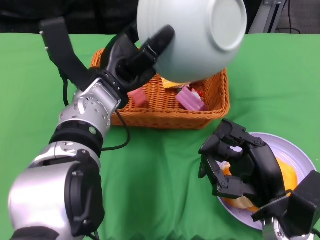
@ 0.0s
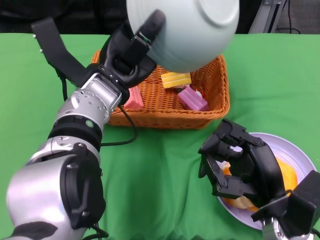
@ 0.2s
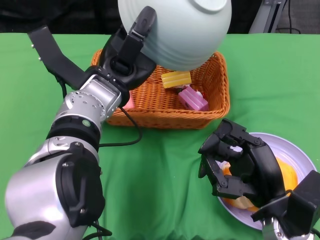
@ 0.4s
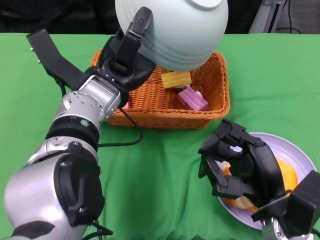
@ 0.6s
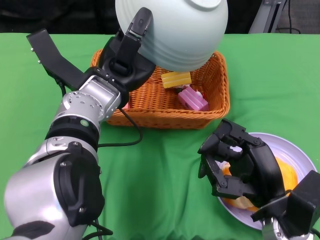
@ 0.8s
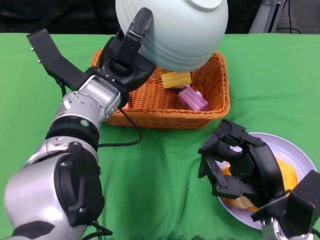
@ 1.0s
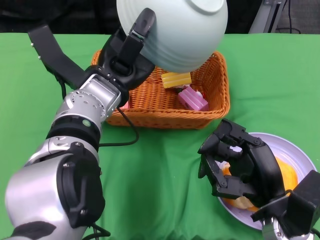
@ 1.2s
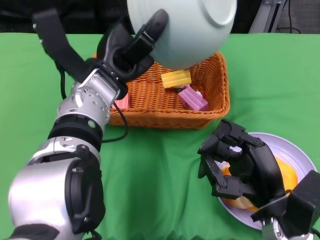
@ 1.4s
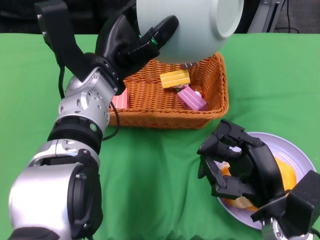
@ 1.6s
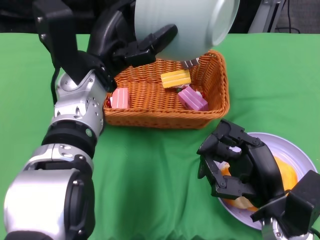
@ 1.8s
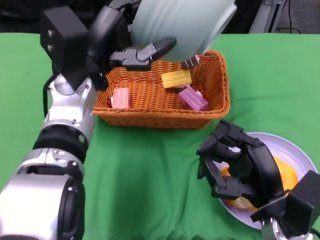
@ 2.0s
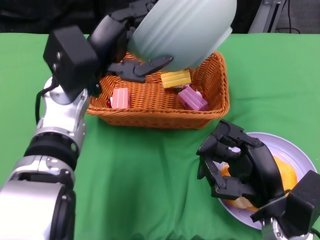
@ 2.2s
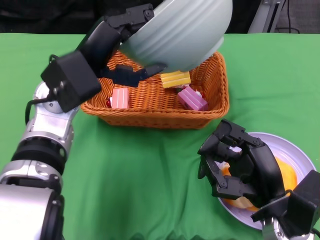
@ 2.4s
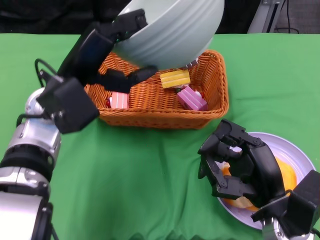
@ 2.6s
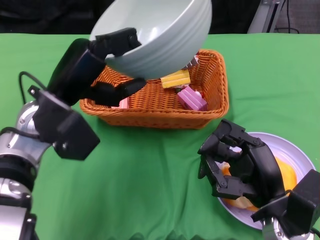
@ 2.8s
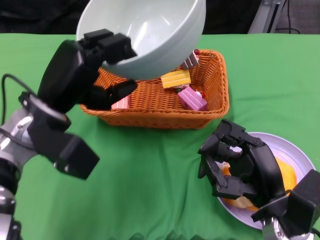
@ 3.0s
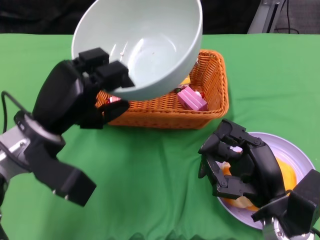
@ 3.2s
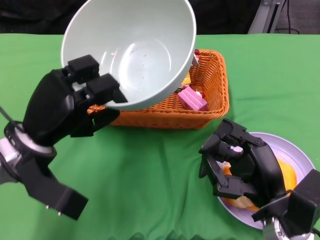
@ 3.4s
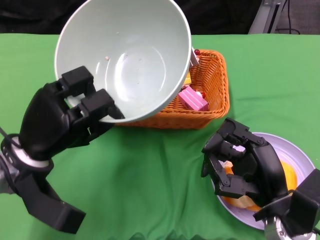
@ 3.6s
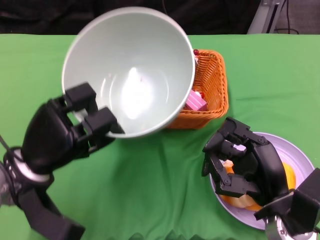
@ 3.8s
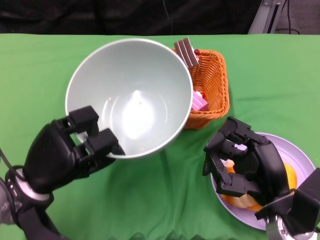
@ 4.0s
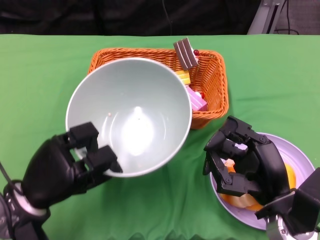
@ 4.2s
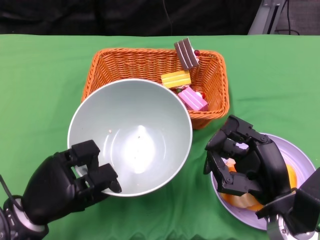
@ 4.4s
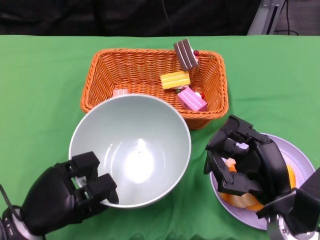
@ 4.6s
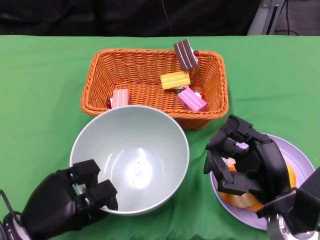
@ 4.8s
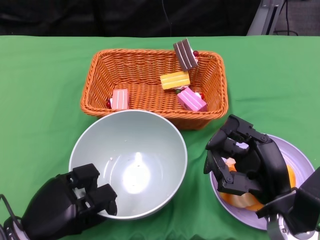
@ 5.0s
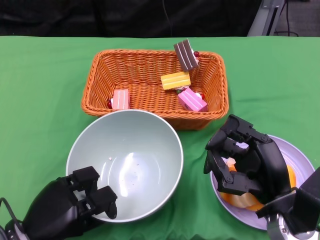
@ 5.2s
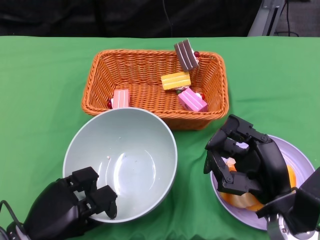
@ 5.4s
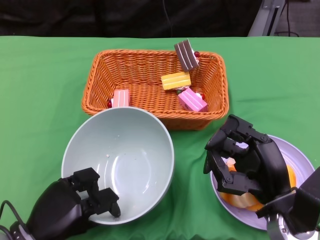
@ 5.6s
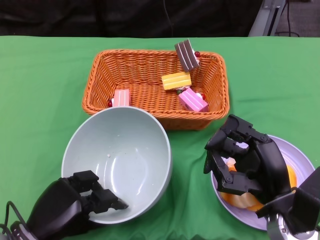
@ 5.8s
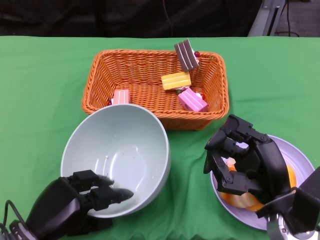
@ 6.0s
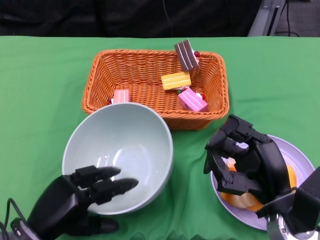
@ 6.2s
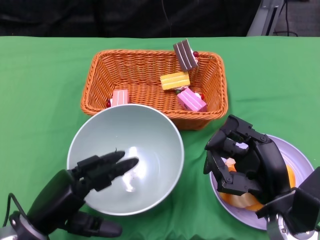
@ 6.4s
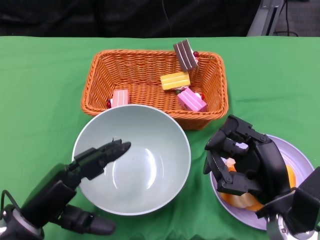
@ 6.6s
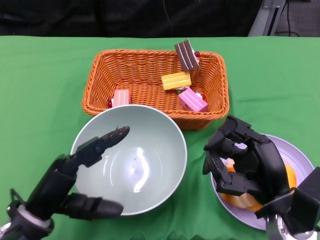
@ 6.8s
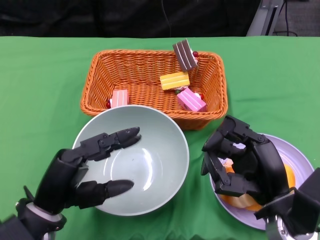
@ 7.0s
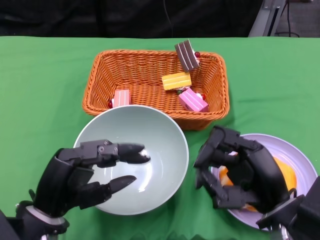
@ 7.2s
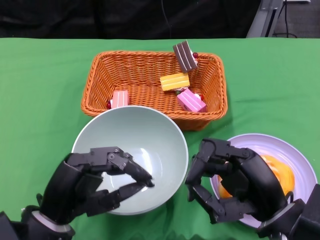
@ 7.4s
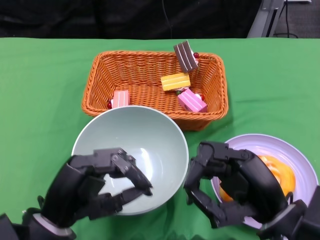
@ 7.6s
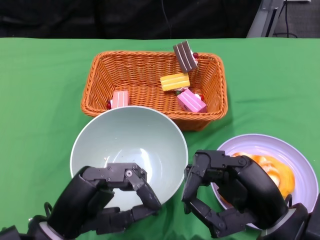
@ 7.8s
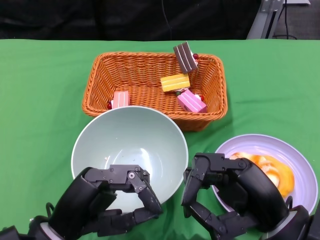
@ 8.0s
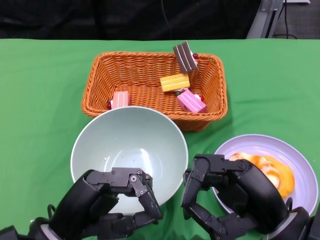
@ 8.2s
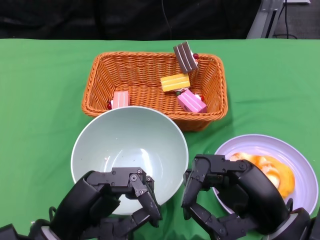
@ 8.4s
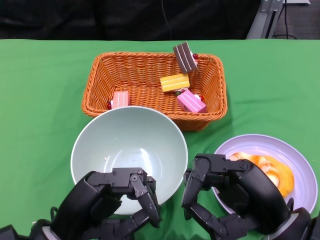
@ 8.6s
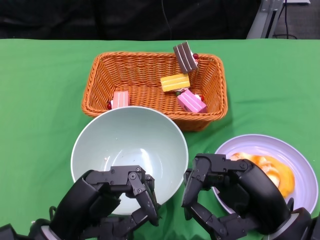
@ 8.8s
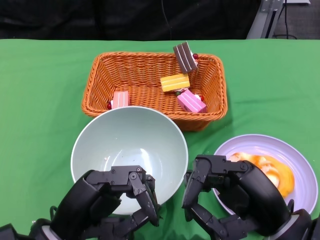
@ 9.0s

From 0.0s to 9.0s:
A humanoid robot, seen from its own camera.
Step, from 0.2s to 6.4s: Place the bowl on the table with the left gripper.
From 1.6s to 3.0s: The left hand is displaced to the left by some 5 cm.
From 3.0s to 4.4s: The left hand goes about 15 cm downward and backward.
From 6.0s to 7.6s: The left hand shifts approximately 10 cm upward.

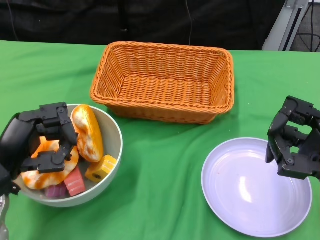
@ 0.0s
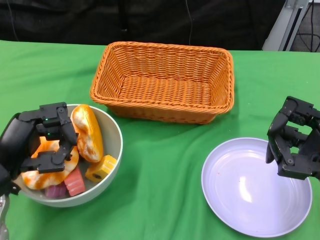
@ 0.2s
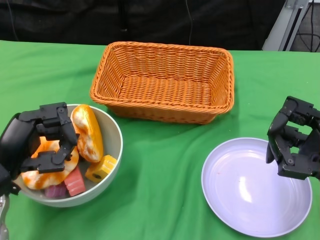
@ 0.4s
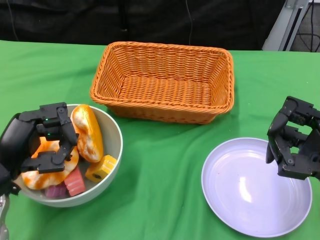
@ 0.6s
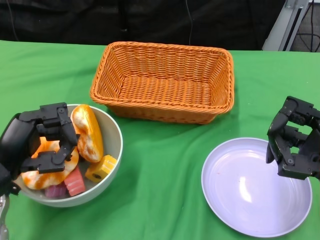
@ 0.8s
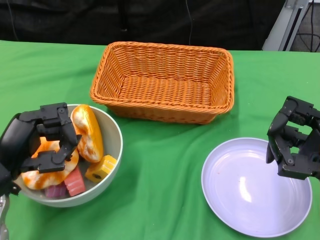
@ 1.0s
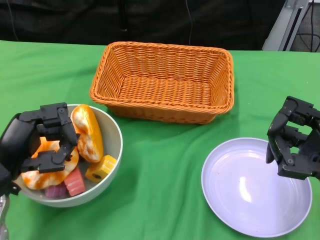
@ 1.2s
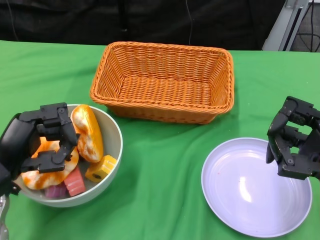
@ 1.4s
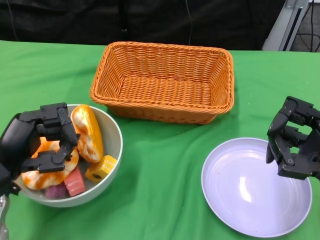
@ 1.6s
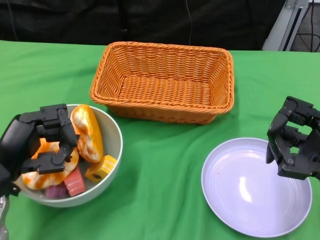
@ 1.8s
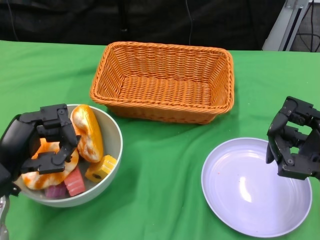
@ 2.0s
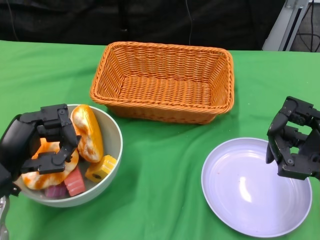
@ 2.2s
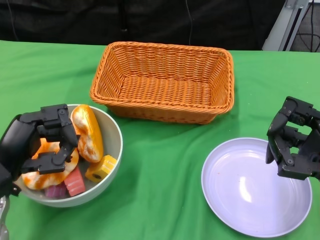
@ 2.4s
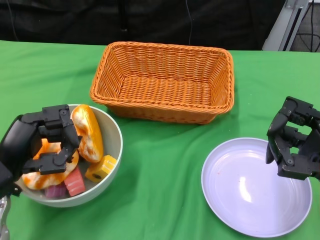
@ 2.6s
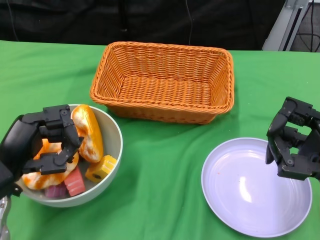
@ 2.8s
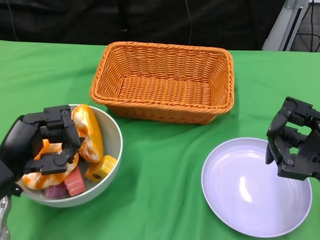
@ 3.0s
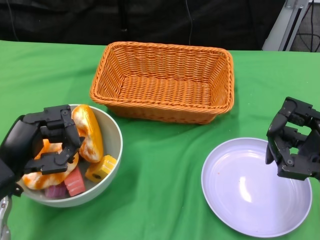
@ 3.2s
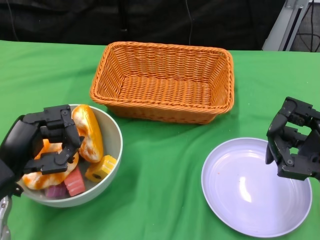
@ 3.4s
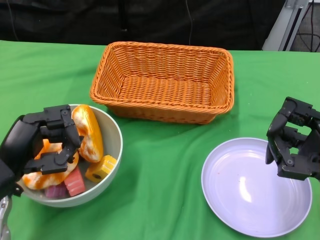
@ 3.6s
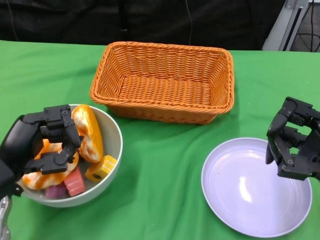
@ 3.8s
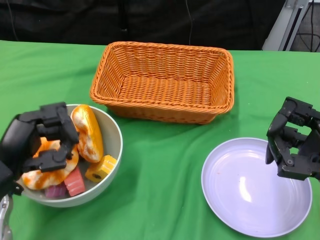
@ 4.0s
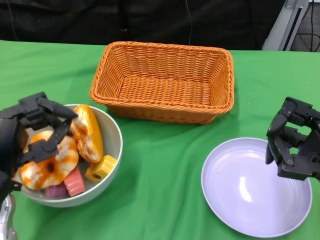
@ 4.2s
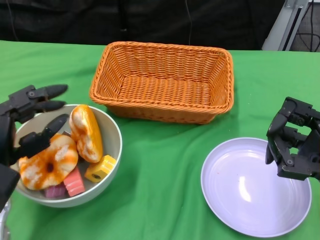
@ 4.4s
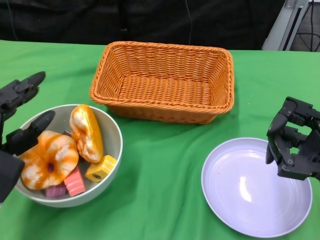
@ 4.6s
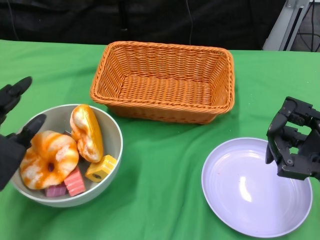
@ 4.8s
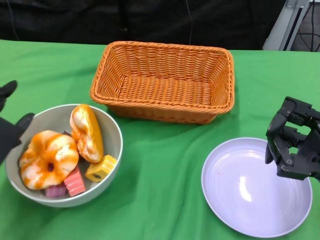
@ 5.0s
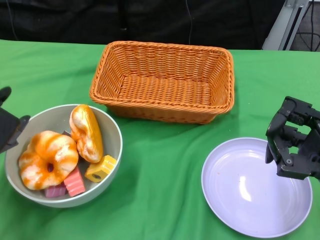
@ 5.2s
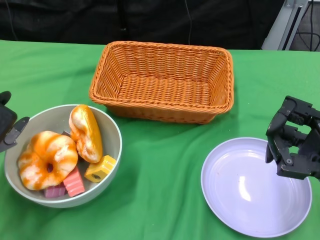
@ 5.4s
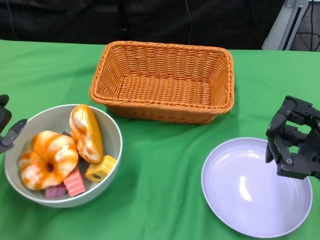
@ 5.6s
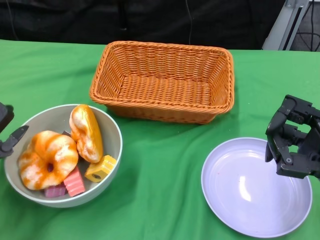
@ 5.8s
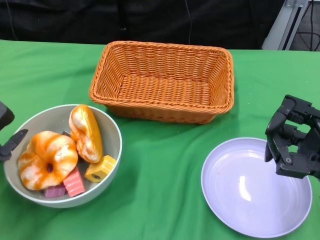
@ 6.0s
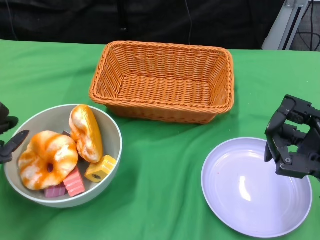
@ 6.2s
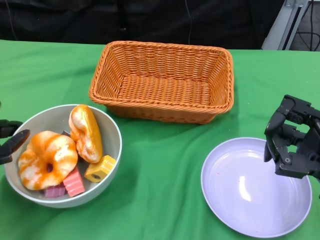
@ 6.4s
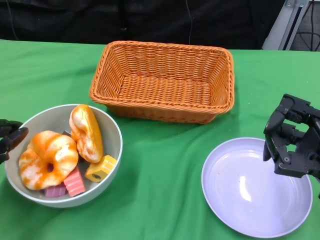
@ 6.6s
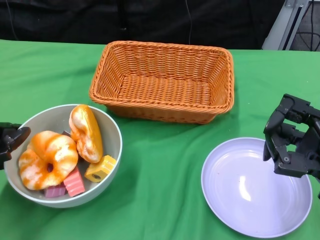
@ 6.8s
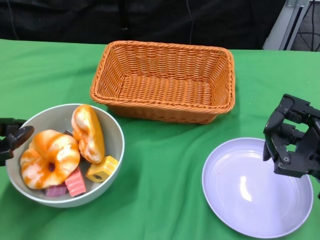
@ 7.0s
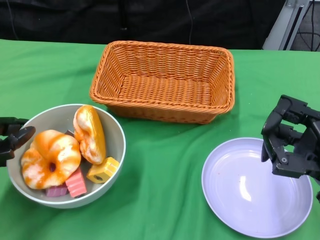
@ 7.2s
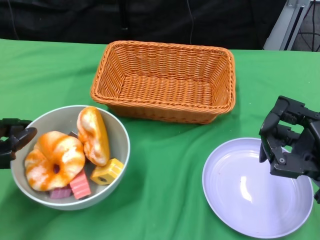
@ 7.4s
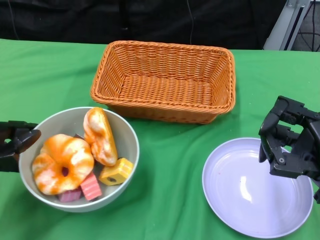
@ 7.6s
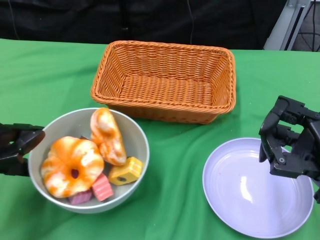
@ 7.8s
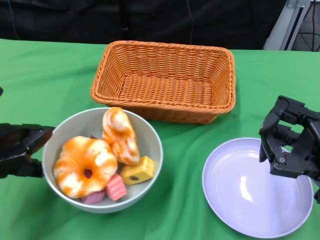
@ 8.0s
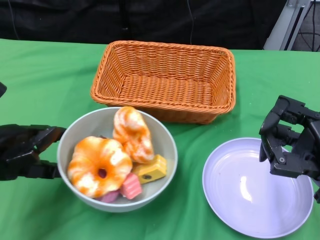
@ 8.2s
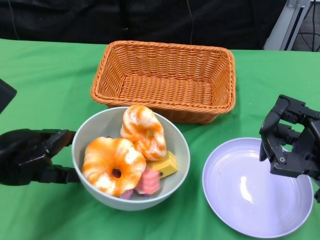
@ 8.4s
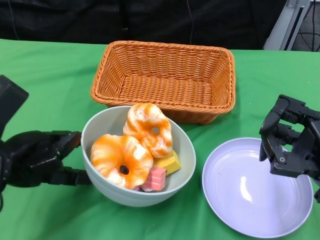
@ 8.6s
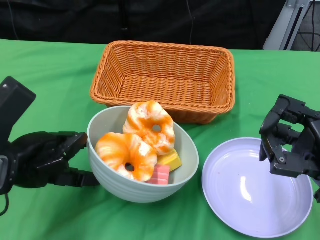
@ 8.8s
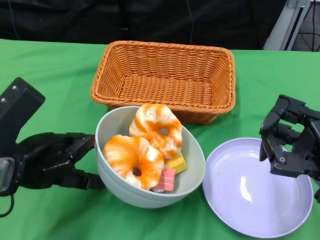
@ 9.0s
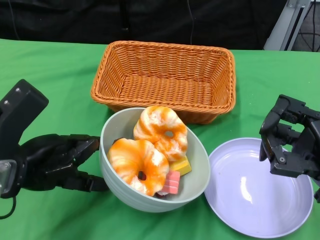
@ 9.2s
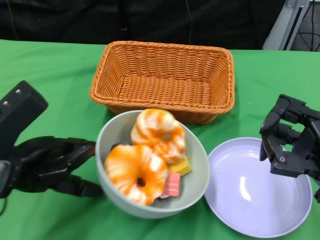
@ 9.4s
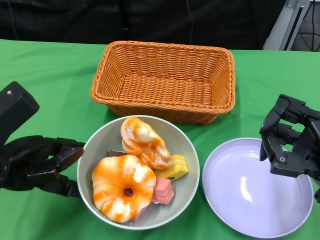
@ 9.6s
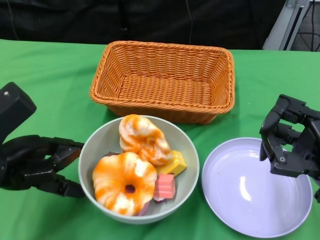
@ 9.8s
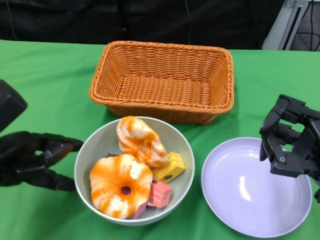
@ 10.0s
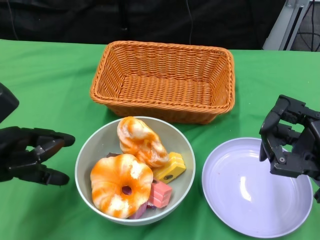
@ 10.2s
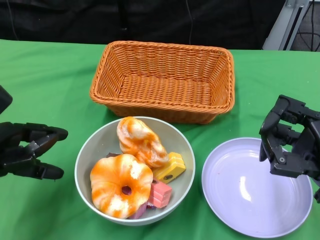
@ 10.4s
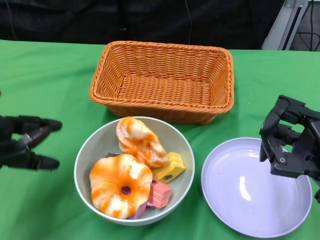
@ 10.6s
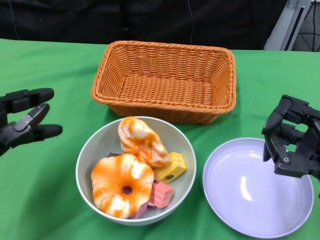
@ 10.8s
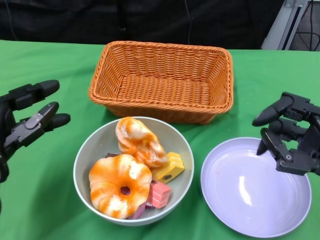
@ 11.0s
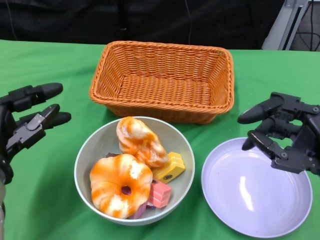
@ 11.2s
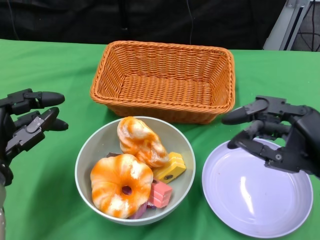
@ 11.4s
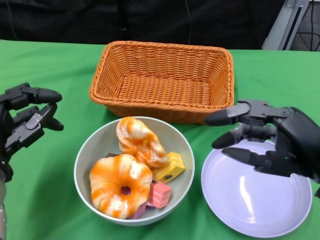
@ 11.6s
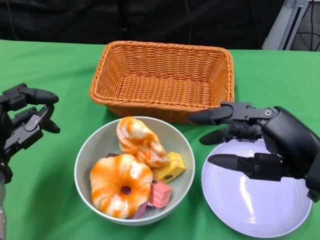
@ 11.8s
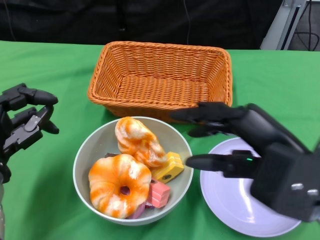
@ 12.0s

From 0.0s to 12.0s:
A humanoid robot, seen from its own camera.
Step, from 0.0s to 9.6s: Push the bowl to the center of the table using the left gripper.
From 1.6s to 3.0s: Both hands stay about where they are.
From 4.4s to 6.0s: The left hand goes roughly 5 cm to the left.
From 7.6s to 9.0s: The left hand goes some 5 cm to the right.
From 10.4s to 12.0s: The right hand is displaced upward and to the left by roughly 10 cm; the left hand goes approximately 5 cm downward.

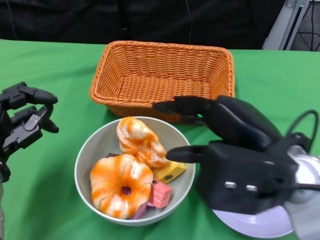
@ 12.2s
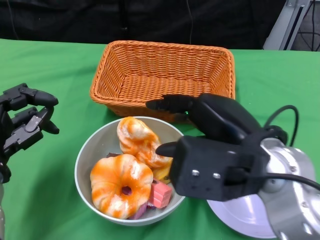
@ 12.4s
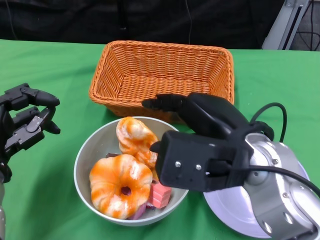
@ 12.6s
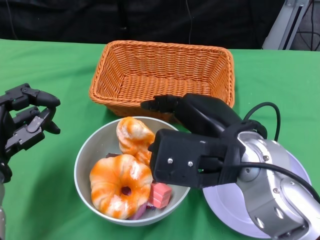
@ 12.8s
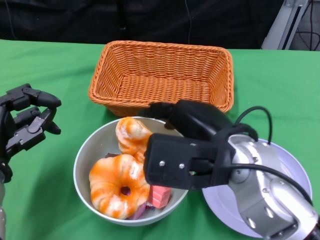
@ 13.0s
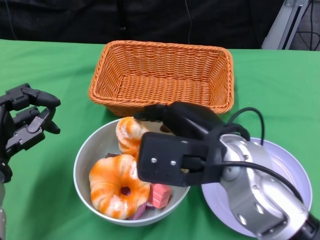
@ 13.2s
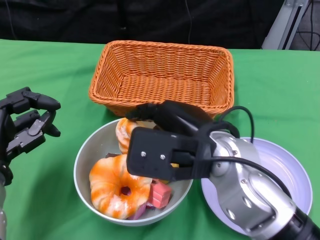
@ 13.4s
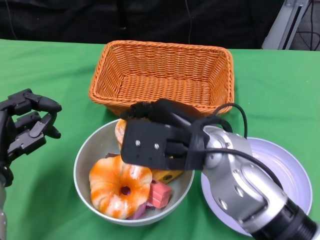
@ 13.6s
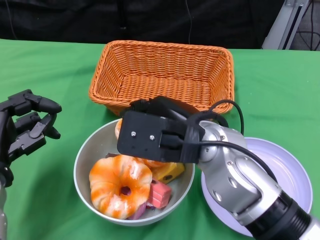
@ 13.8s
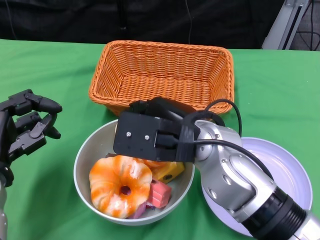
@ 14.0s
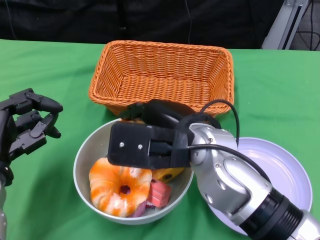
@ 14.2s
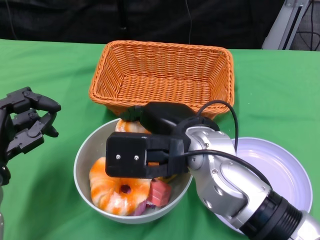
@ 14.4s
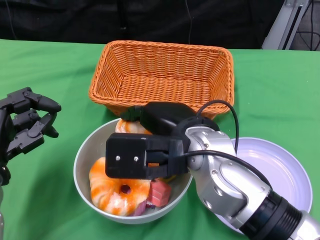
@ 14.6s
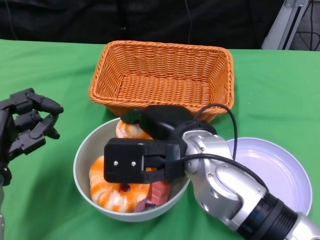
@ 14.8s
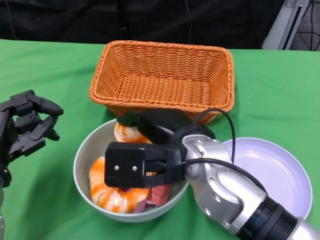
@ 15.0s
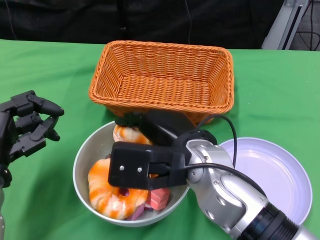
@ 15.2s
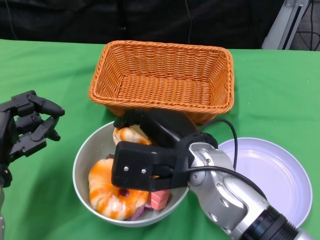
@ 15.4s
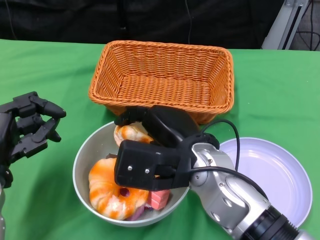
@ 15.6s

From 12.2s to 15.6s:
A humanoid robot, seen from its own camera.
From 12.2s to 13.8s: The right hand travels to the left and forward by some 10 cm.
